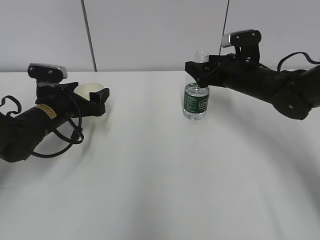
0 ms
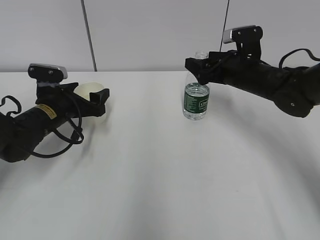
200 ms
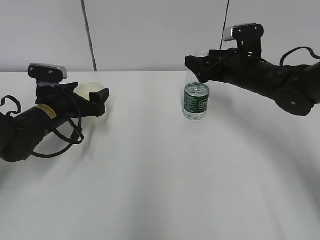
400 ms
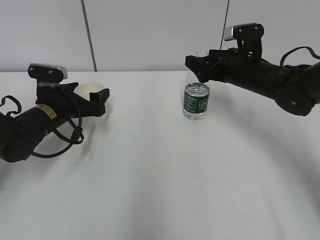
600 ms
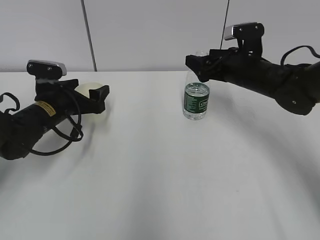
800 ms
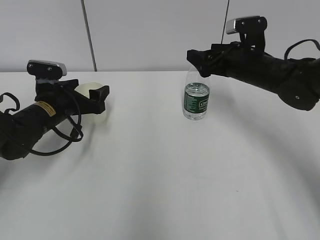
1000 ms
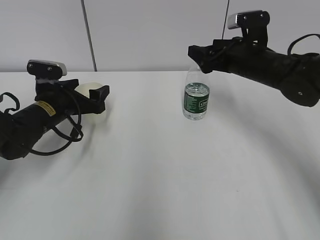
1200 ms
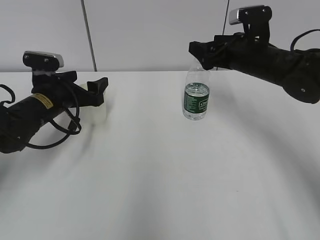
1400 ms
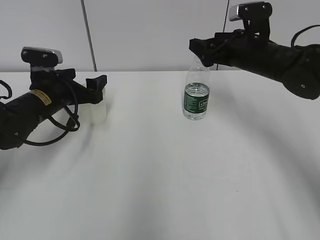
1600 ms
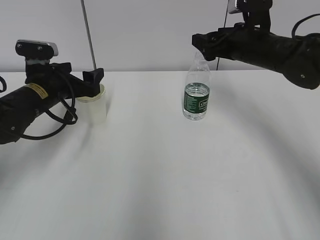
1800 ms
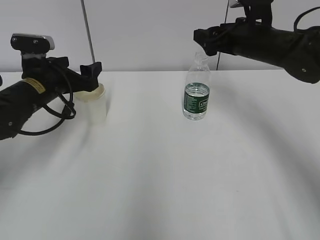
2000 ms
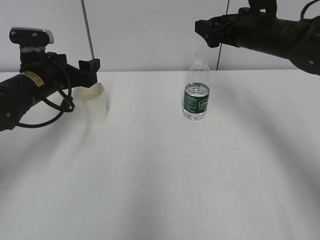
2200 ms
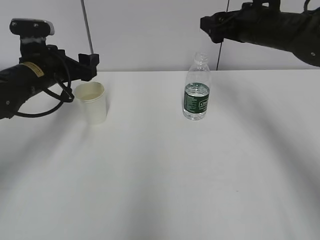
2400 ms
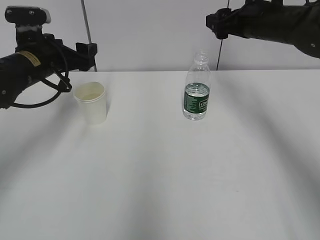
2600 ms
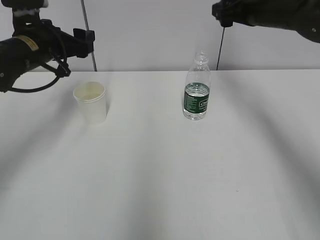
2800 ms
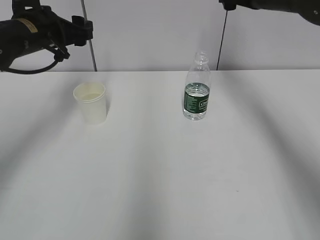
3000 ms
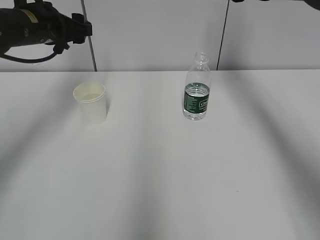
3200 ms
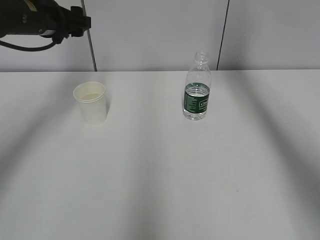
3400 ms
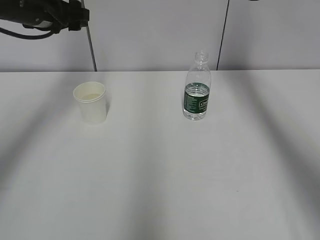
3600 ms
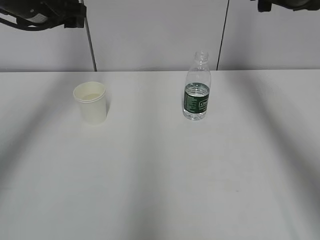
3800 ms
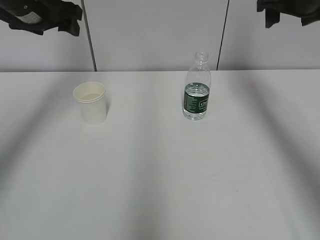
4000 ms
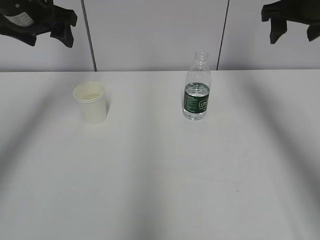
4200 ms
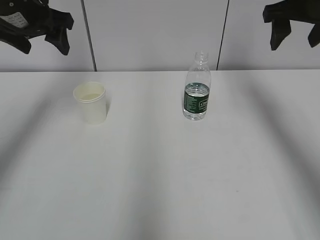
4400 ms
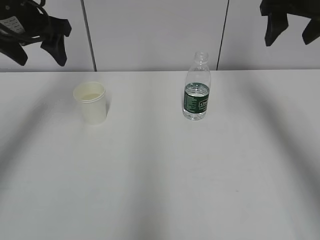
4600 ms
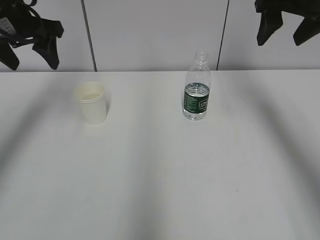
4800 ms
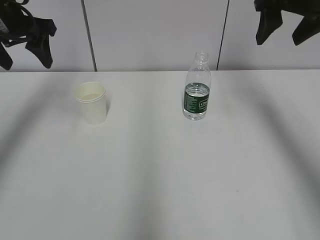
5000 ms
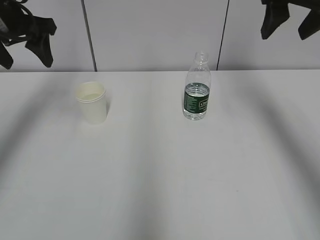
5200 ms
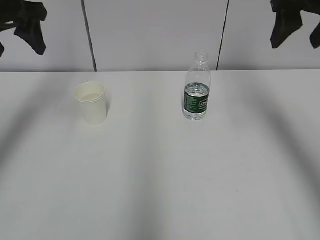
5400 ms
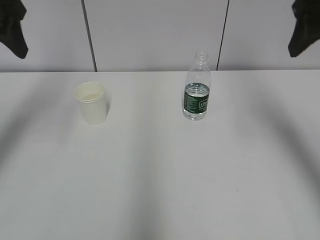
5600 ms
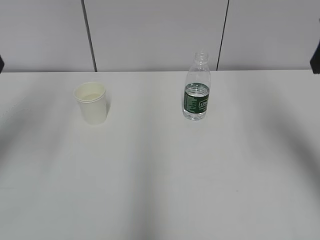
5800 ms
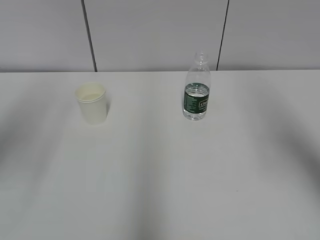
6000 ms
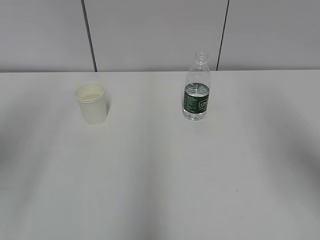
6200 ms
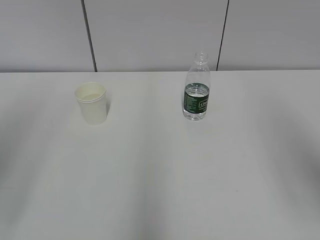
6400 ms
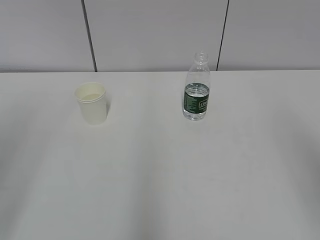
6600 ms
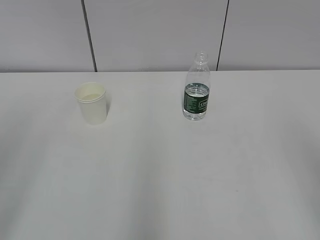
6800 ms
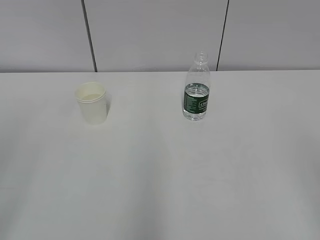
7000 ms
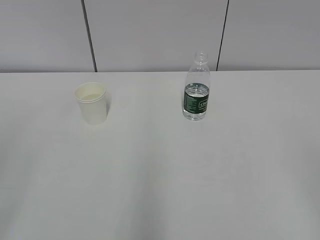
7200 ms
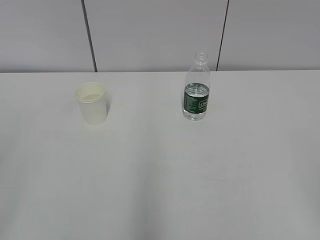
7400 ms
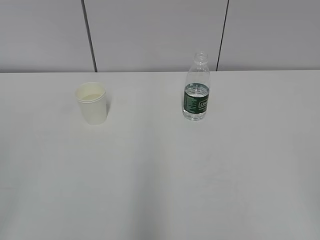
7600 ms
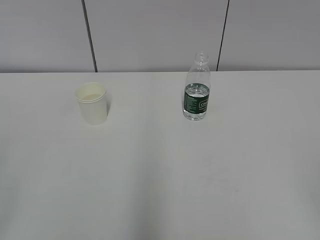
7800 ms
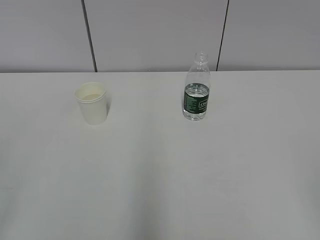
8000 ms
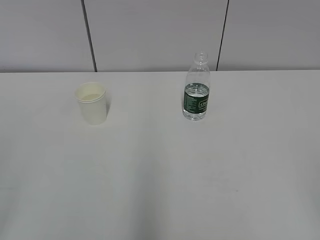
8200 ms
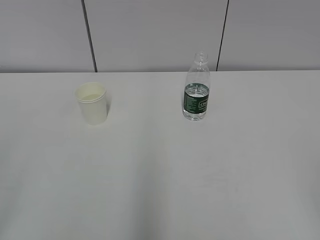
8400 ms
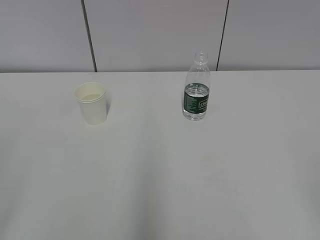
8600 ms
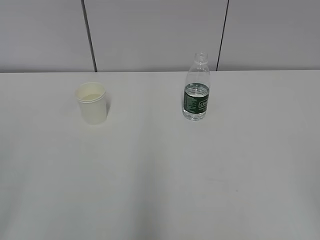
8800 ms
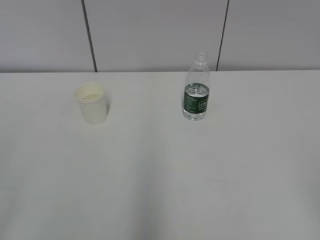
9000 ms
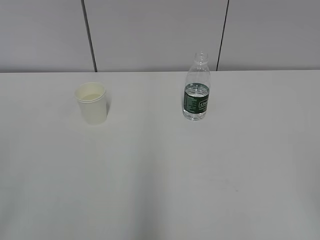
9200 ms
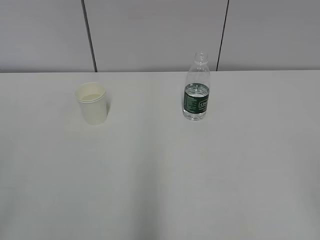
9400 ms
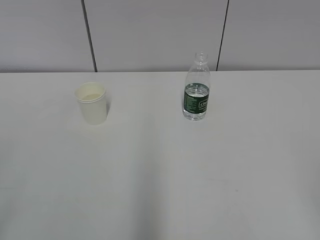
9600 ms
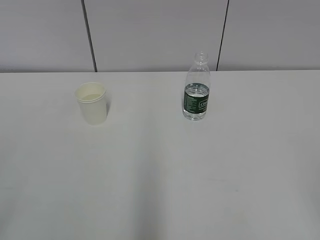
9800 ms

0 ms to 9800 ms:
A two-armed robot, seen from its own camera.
0 ms to 1400 ms: The grippers make only small movements.
1400 ms to 2800 ms: Both grippers travel together upward, about 10 cm.
2800 ms to 4200 ms: The right gripper is displaced backward by roughly 5 cm; the left gripper shifts some 10 cm upward.
4200 ms to 5600 ms: Both grippers travel together backward, some 10 cm.
5600 ms to 7000 ms: The grippers both shift backward by some 25 cm.
8400 ms to 9800 ms: Both grippers stay about where they are.
